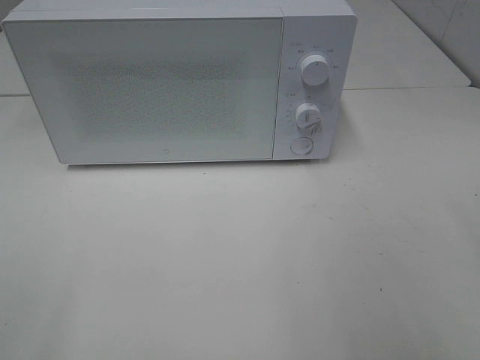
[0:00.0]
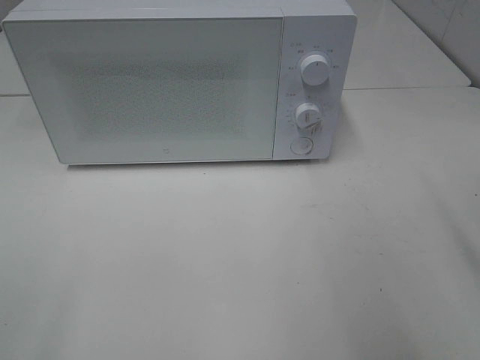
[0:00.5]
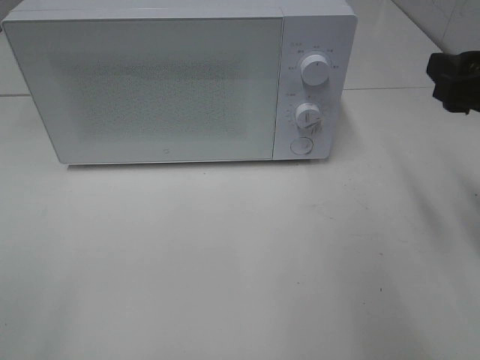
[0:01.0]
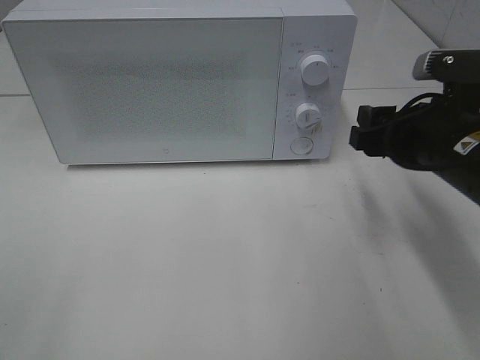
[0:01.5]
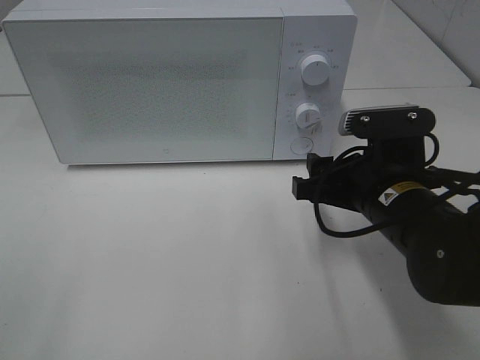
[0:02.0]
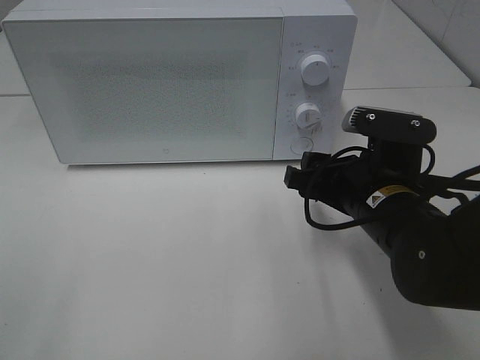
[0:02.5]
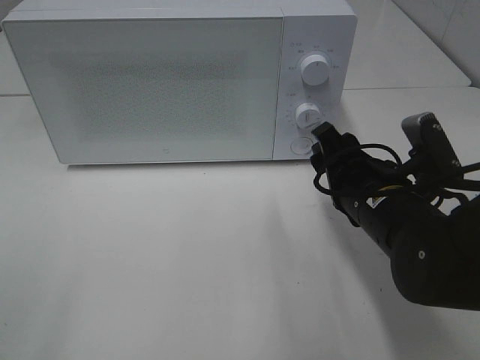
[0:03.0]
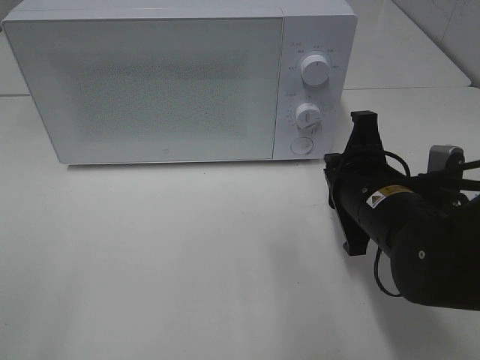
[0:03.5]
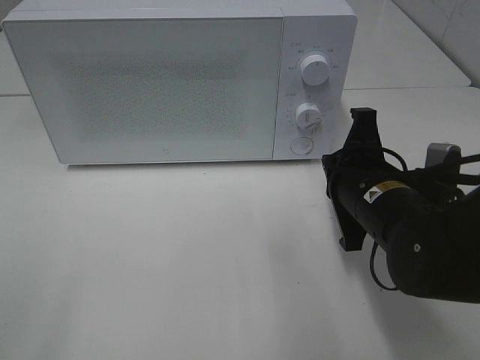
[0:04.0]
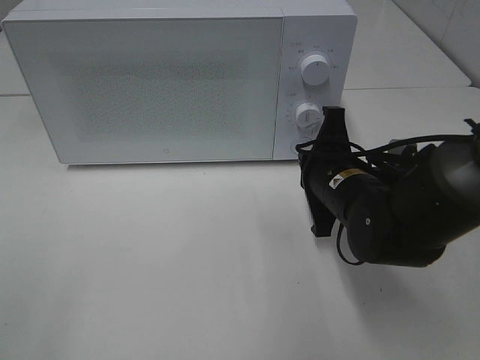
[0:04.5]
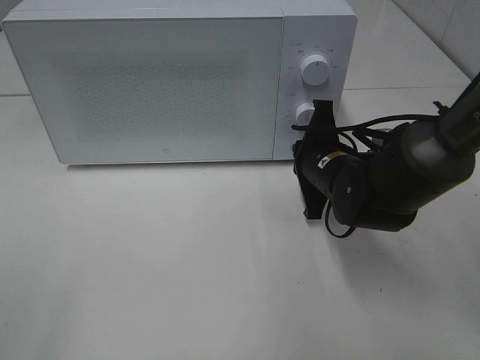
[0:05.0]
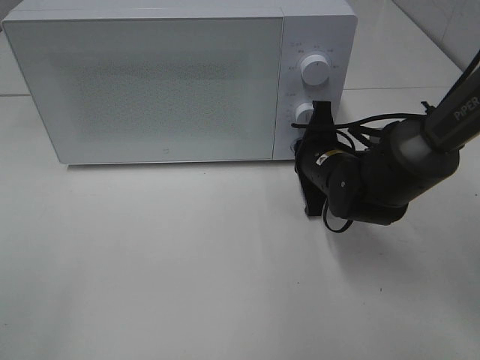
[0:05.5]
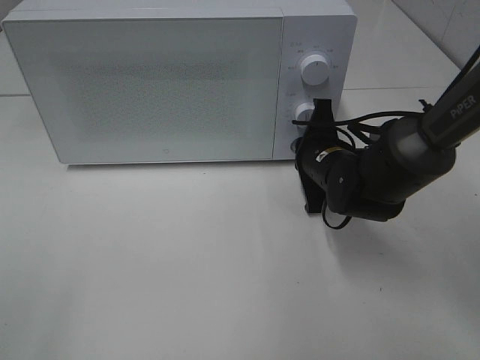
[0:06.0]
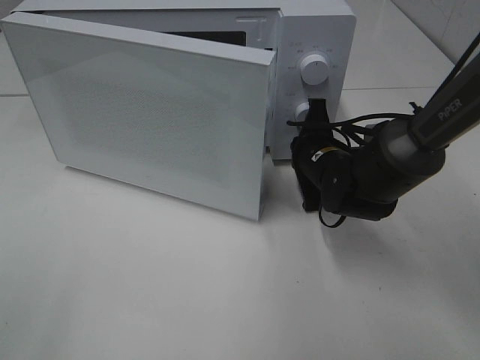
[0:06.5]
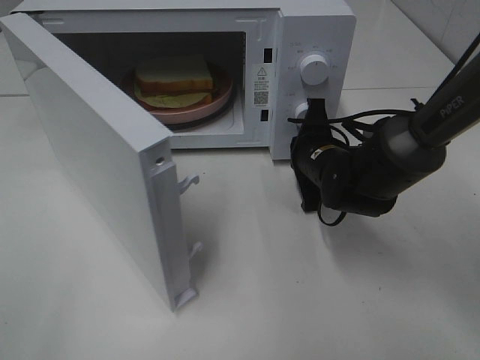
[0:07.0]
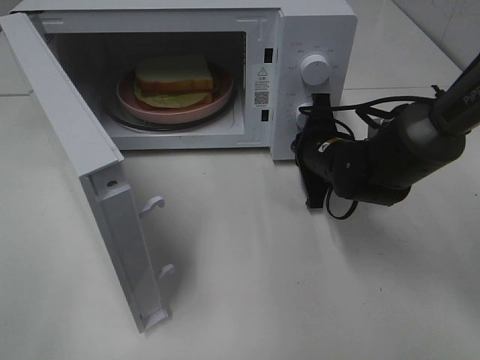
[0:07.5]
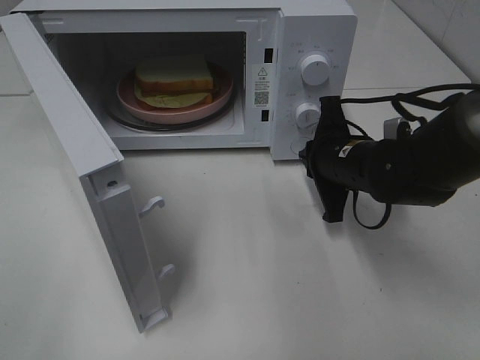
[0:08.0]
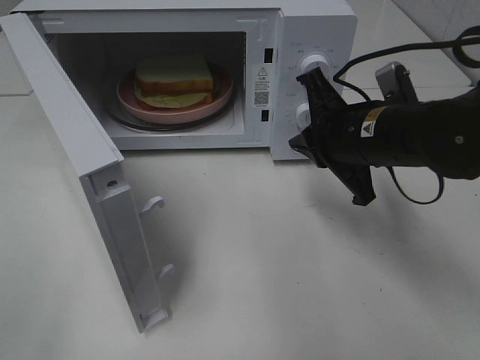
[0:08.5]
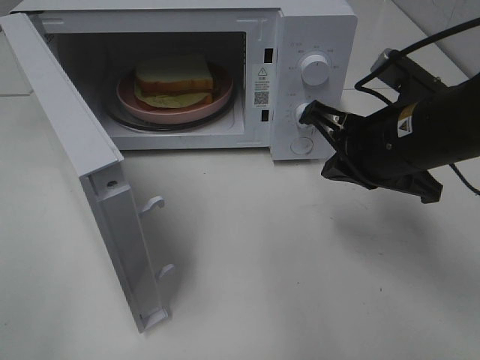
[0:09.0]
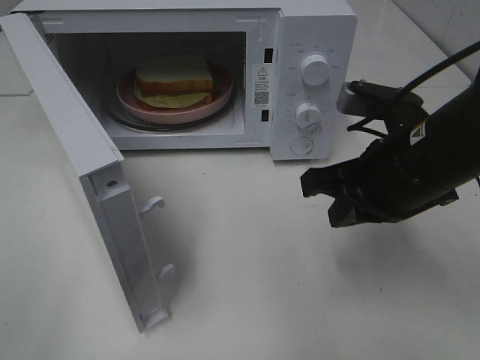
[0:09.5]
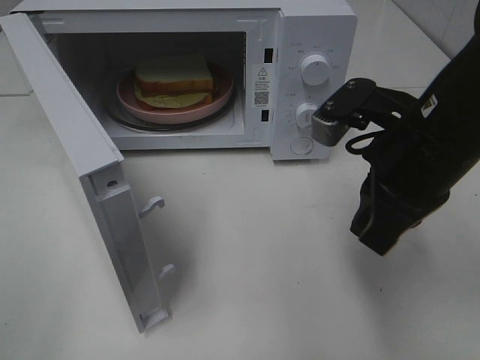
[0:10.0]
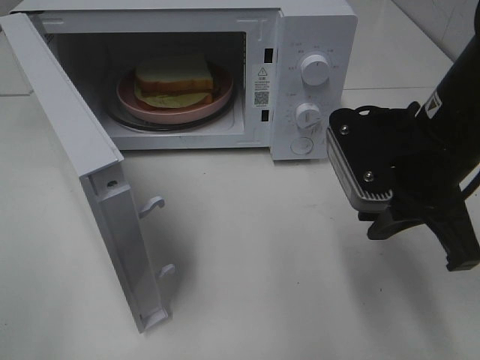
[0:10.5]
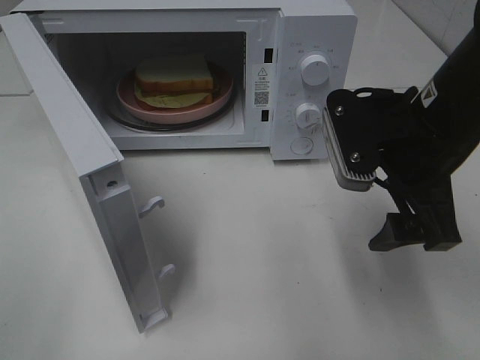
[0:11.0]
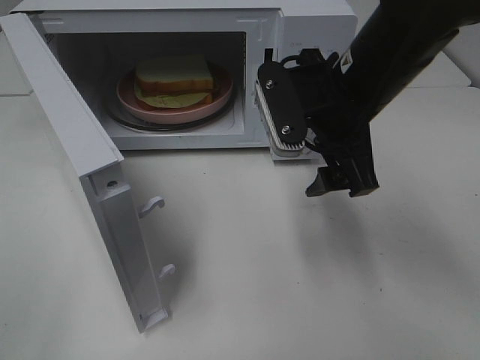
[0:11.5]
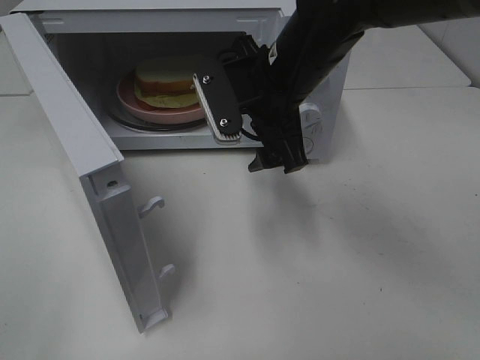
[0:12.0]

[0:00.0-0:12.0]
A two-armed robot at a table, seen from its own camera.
Task of the whole recording: Heat Sandwich.
Step, 0:00.0 to 0:08.0: Right hand: press the switch.
0:00.0 to 0:02.0: The right gripper goes roughly 25 cm downward, forward and to the left.
0:02.0 to 0:04.0: The right gripper closes.
0:04.0 to 0:06.0: The right gripper heads forward, covering roughly 10 cm.
0:08.0 to 0:10.0: The right gripper shifts about 15 cm upward and backward.
0:10.0 to 0:12.0: The right gripper shifts roughly 15 cm to the left and forward, and opens.

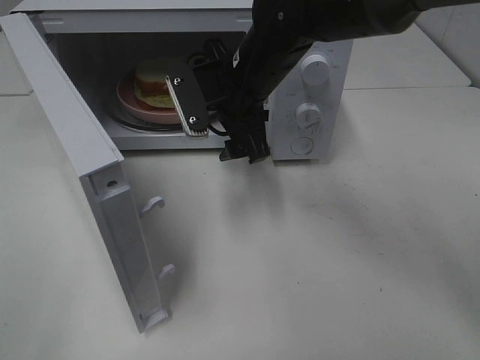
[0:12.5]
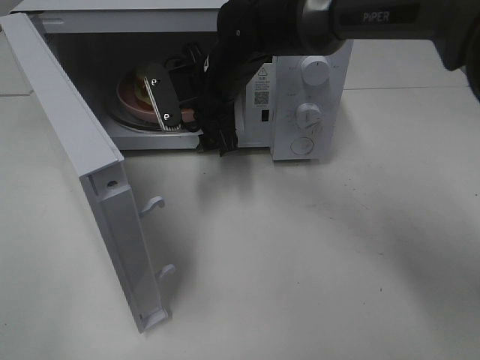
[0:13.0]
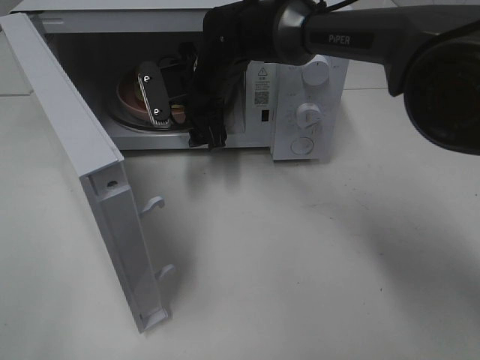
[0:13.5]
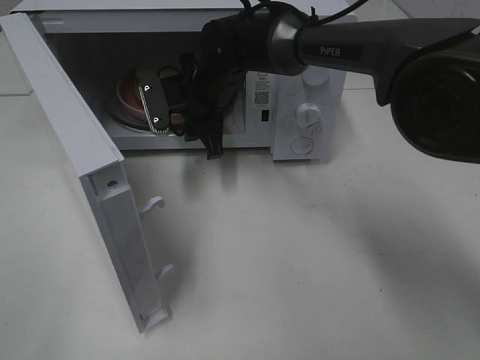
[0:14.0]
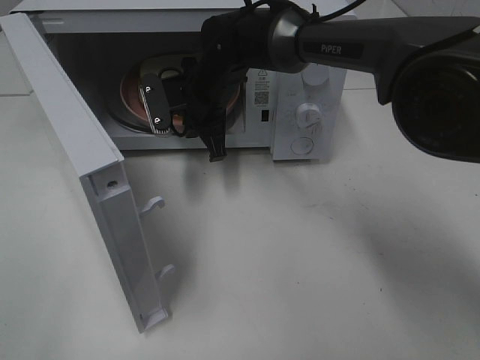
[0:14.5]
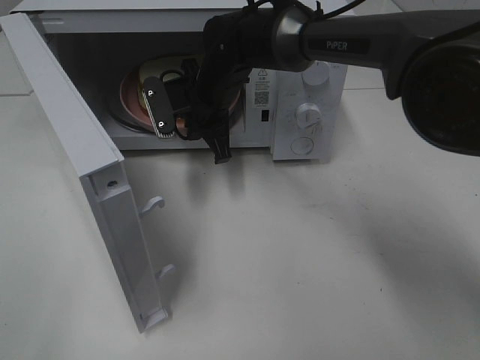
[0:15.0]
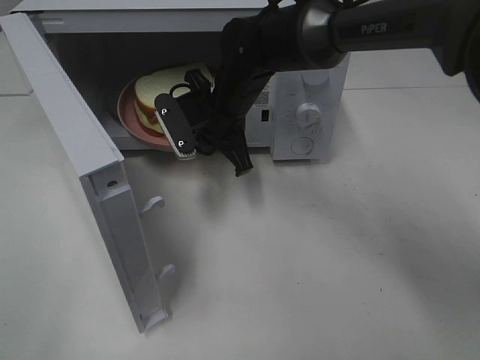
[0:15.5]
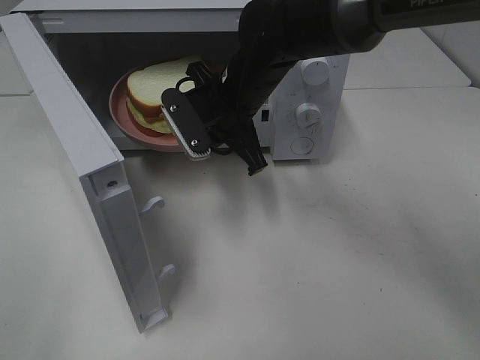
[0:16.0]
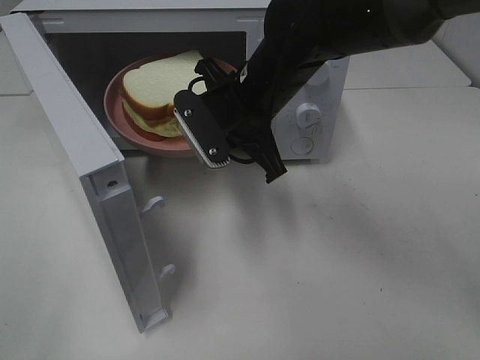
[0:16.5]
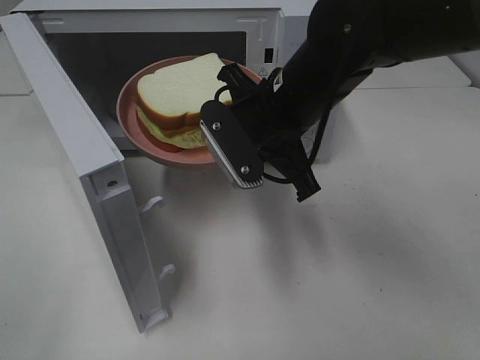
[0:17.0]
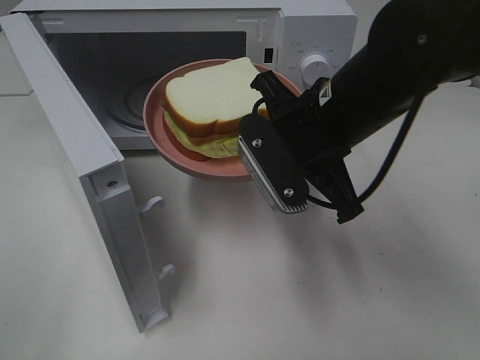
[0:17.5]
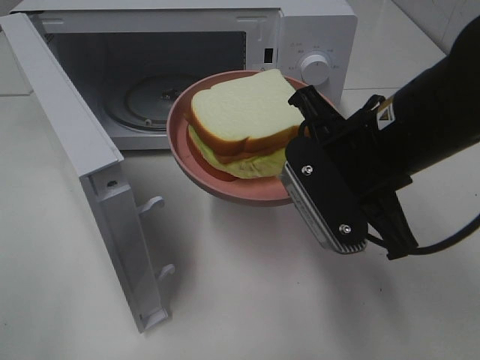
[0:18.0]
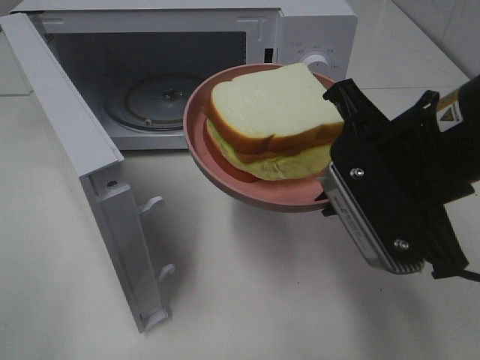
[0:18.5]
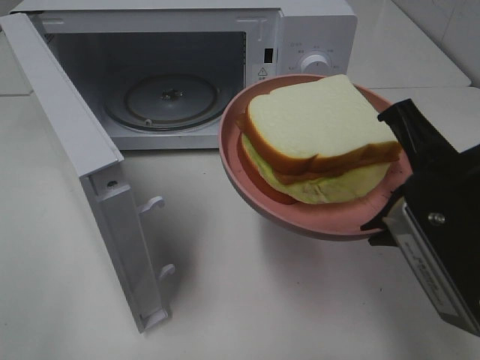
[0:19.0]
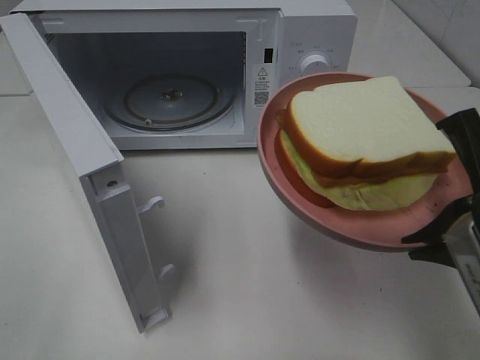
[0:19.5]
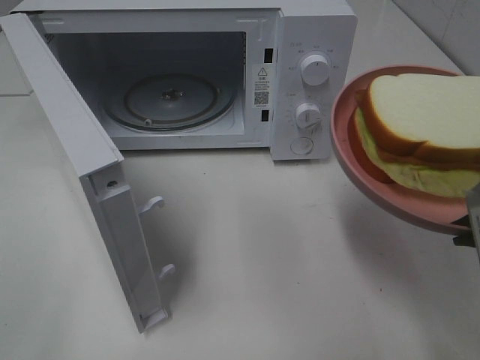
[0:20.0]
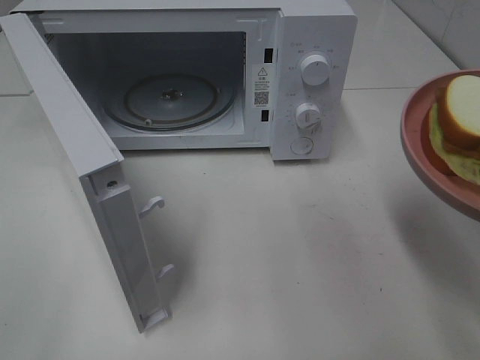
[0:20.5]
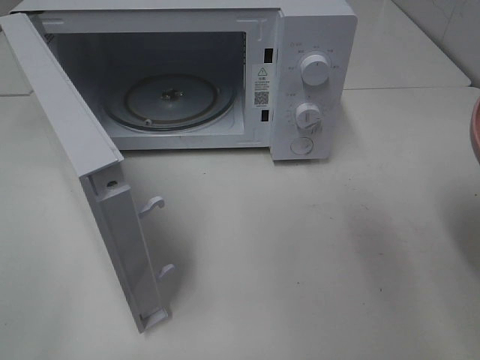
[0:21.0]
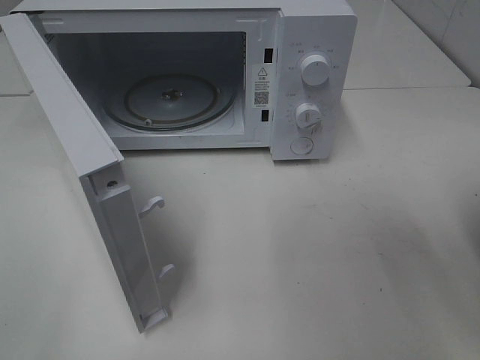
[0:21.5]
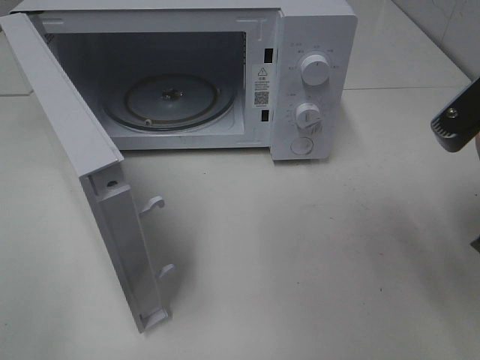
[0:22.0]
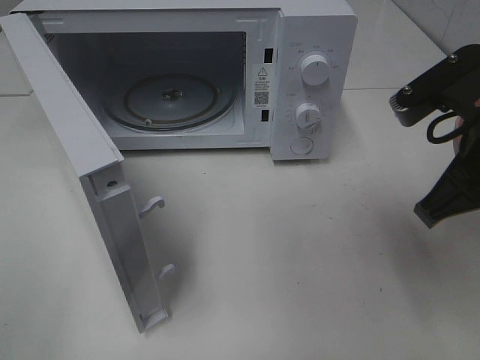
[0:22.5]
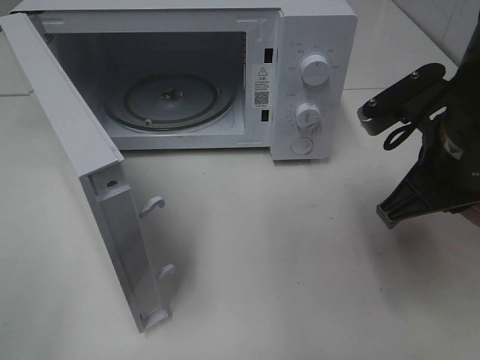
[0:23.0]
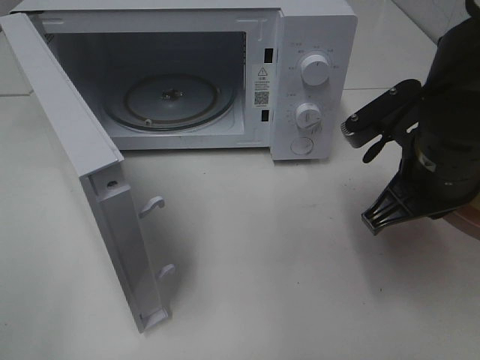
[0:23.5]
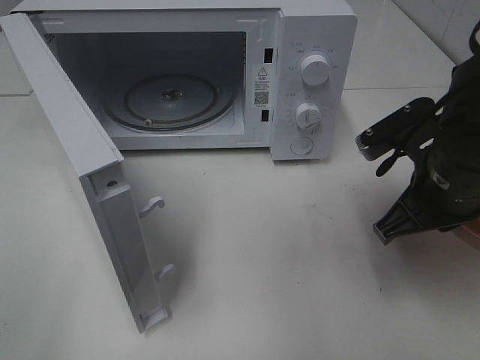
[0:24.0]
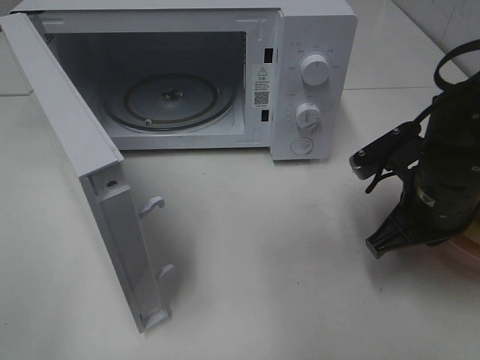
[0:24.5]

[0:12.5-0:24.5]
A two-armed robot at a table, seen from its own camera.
Task of the whole recording: Heat Sandwich.
Step, 0:12.5 to 0:15.0: Right hand: grab the plate with the sandwich.
0:12.5 to 0:14.5: The right gripper heads forward and downward, covering approximately 10 cm, and closes its fingers.
0:14.5 to 0:16.5: The right gripper shifts approximately 15 cm backward, to the right and upward.
0:16.5 to 0:18.5: The right gripper shifts about 20 cm backward and to the right.
0:18.5 to 0:20.5: The right gripper goes approximately 10 cm to the right and backward.
0:20.5 to 0:22.5: The right gripper heads forward, covering roughly 10 cm.
0:22.5 to 0:24.5: The right gripper moves downward, some 10 cm.

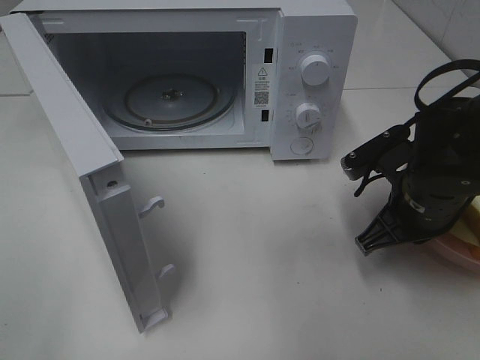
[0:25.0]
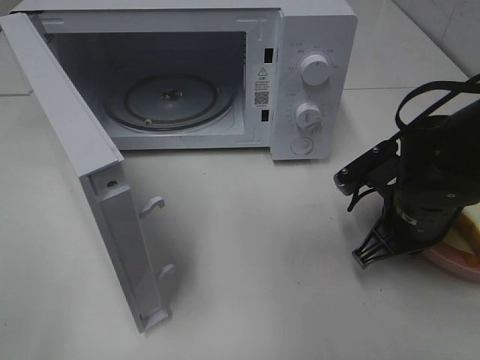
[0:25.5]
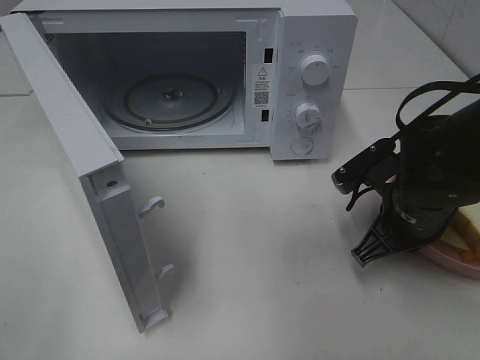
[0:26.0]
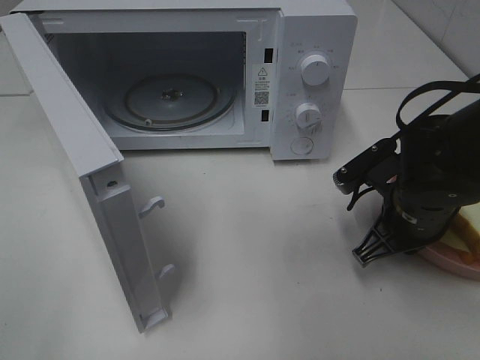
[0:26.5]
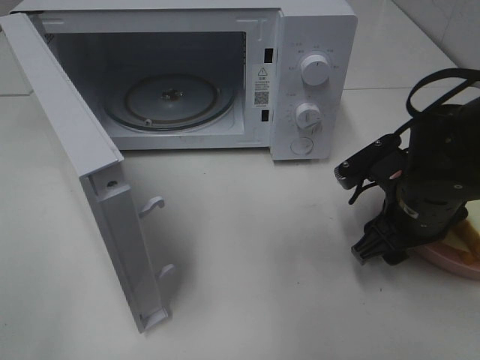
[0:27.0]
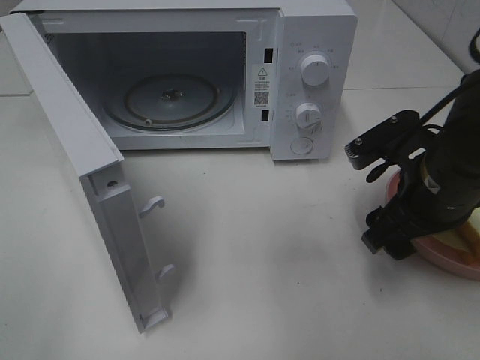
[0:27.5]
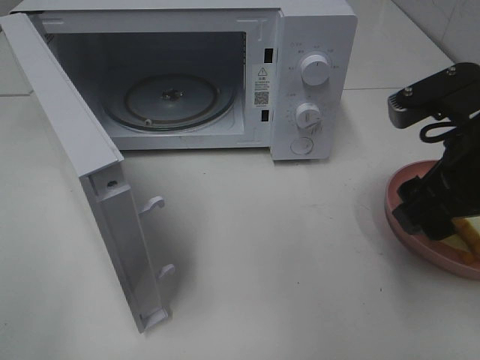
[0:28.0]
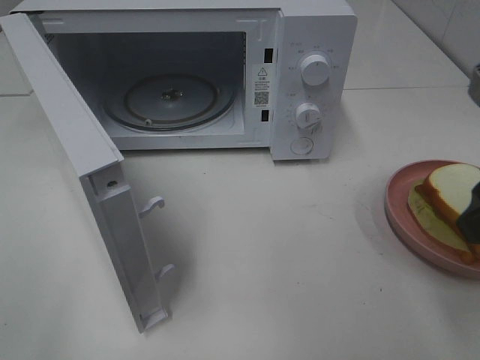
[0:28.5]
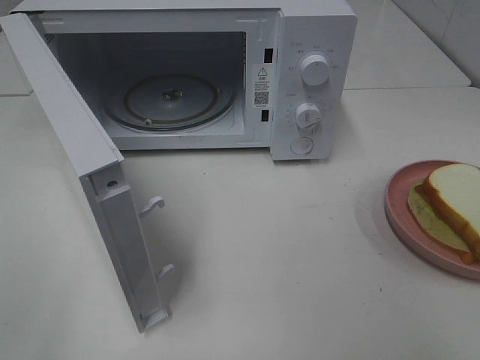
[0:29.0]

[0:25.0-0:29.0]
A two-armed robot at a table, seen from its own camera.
Task of the whole recording: Heat Sandwich.
Step, 0:25.0 to 0:27.5: Right hand: place the plate on the table.
0:25.0 to 0:27.0: The right gripper opens up.
0:27.0 to 0:29.0: The right gripper goes about 25 cm upward and backward.
